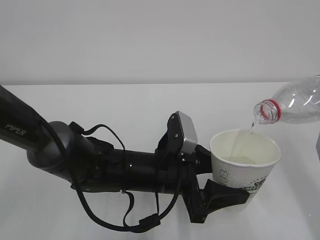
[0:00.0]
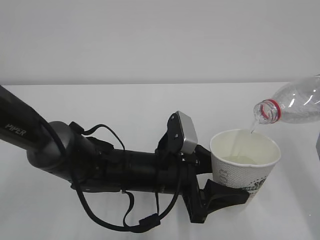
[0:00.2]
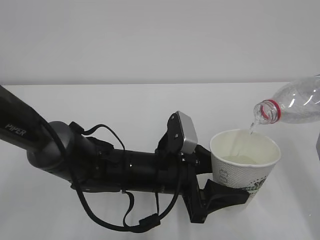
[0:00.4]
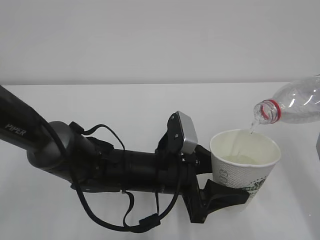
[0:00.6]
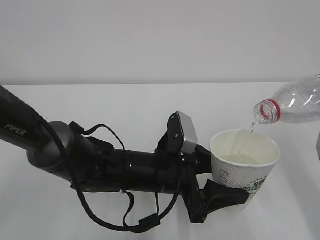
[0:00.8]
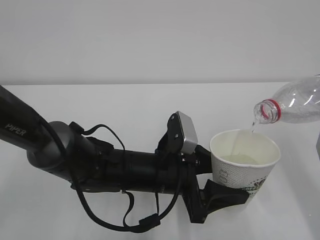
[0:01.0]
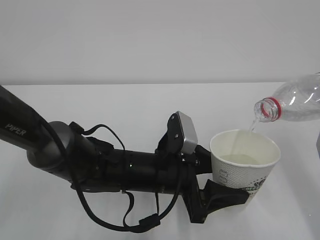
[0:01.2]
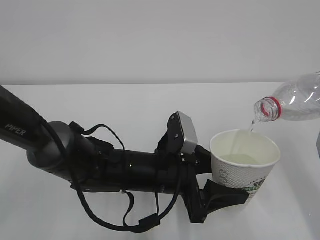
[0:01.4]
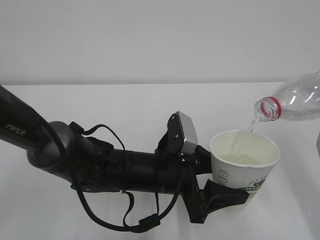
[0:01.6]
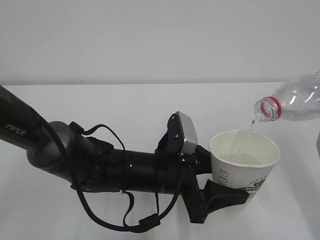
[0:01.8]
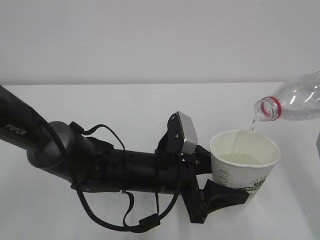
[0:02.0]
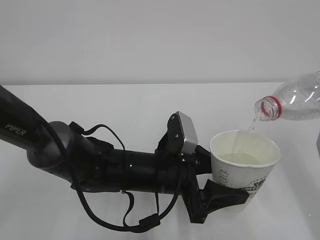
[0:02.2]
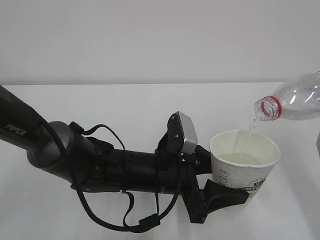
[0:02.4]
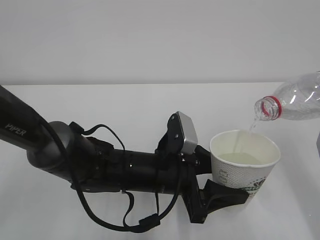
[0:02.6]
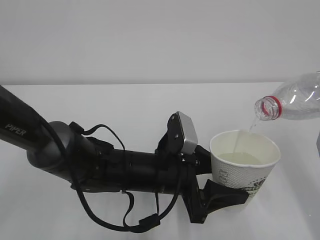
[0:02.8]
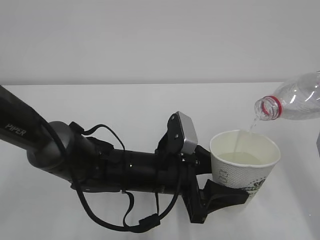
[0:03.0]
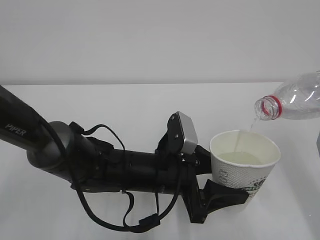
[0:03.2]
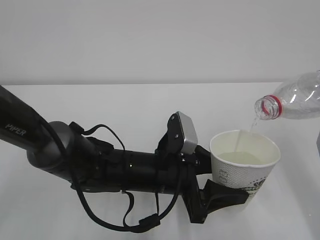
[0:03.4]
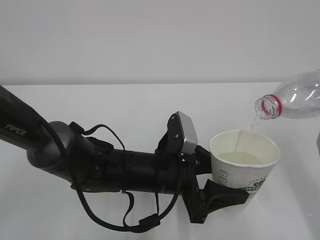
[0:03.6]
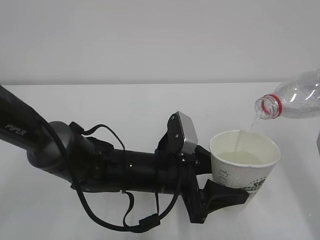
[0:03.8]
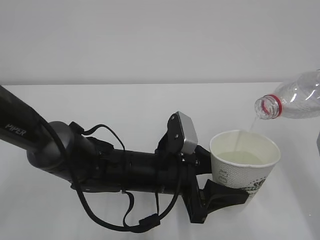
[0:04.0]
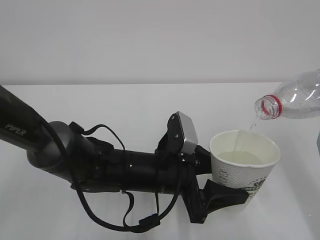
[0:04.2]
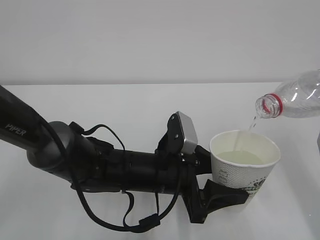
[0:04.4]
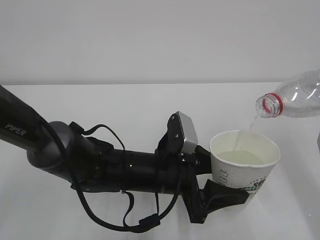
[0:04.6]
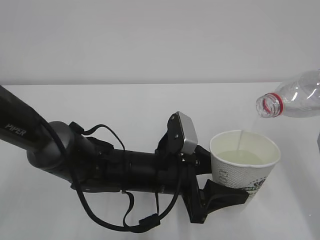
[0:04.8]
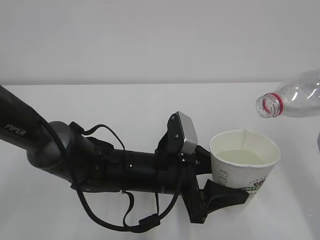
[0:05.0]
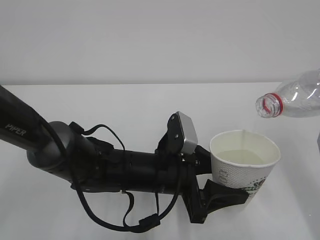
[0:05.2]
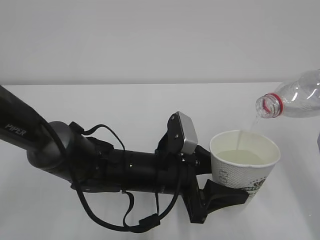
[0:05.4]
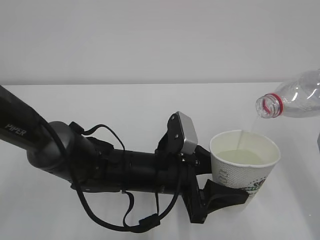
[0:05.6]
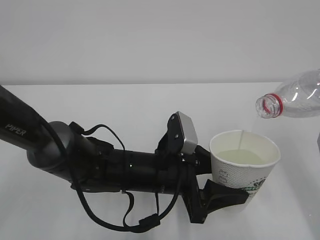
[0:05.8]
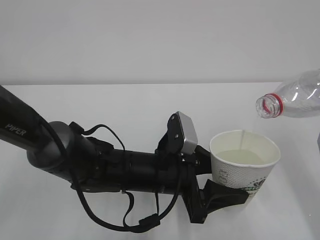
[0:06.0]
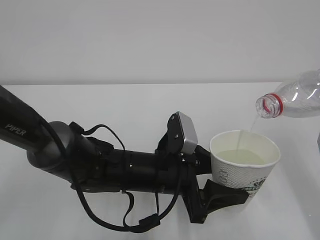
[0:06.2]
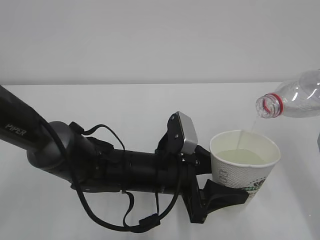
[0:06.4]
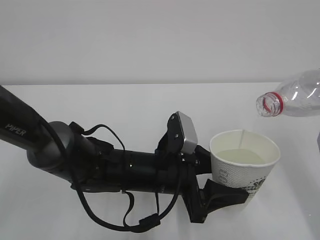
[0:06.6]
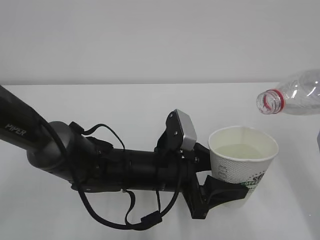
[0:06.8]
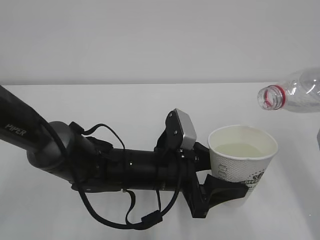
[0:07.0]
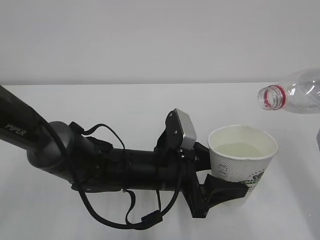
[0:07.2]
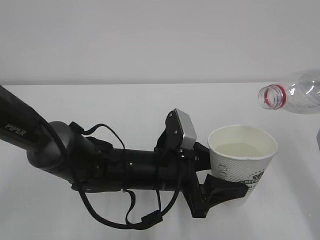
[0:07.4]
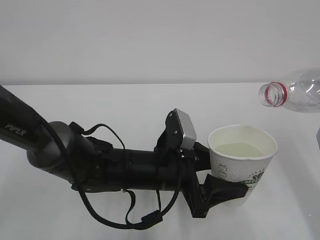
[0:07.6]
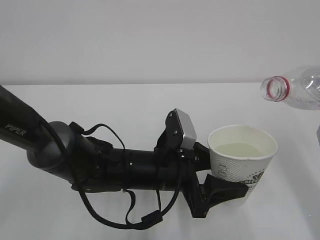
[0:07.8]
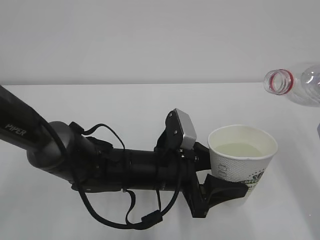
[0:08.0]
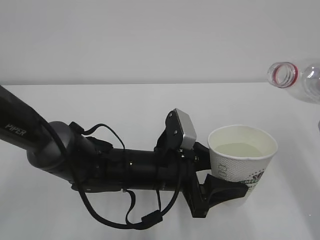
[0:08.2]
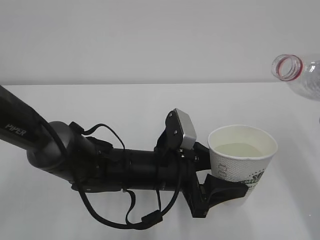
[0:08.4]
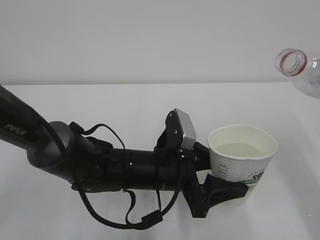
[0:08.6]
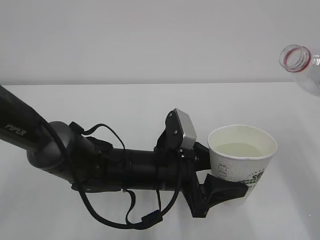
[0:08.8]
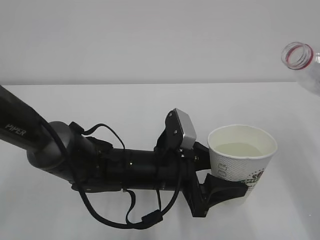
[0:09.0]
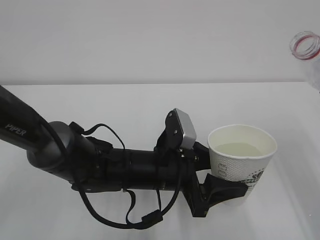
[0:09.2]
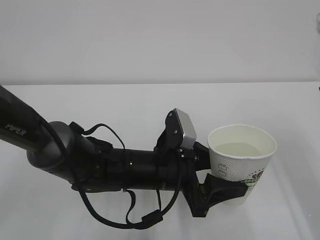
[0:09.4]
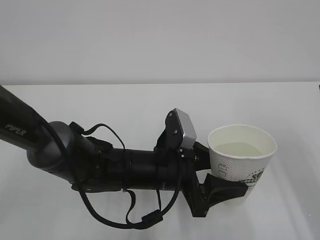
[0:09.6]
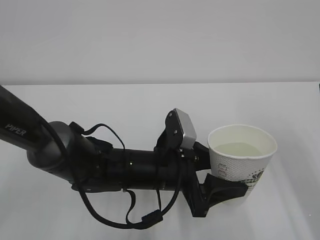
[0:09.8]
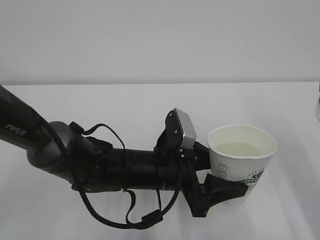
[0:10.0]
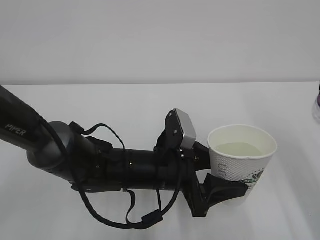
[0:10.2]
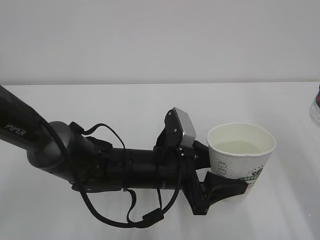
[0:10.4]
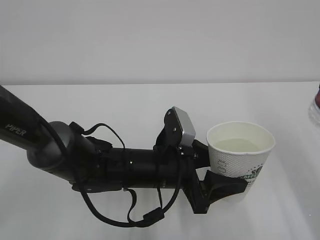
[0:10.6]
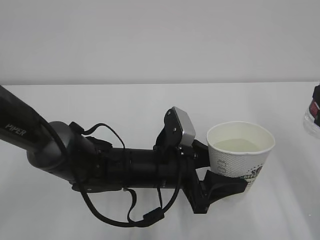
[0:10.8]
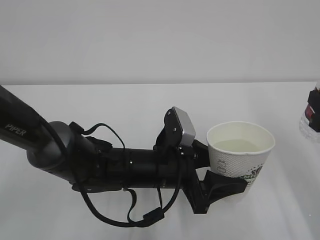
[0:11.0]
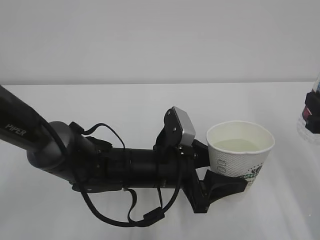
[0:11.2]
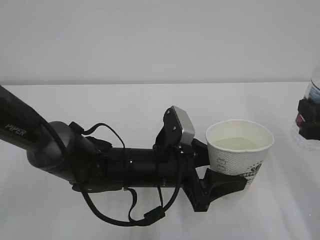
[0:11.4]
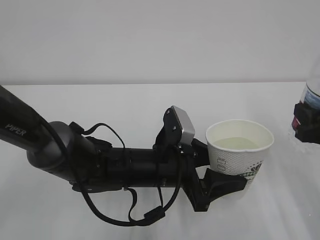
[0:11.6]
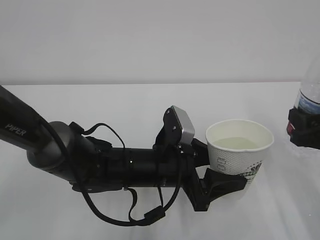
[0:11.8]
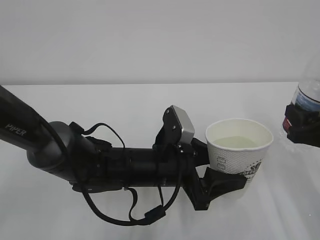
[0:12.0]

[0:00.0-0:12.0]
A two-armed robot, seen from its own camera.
0:00.0 to 0:06.0: The two grippers keep their place.
0:06.0 to 0:07.6: The grippers stay close to where they were, moving slightly.
0:10.4 to 0:12.0: The right gripper moves downward, about 5 cm.

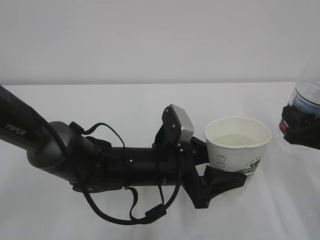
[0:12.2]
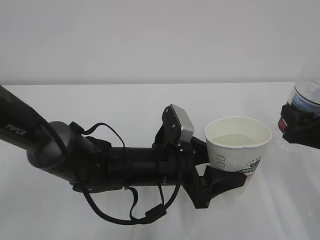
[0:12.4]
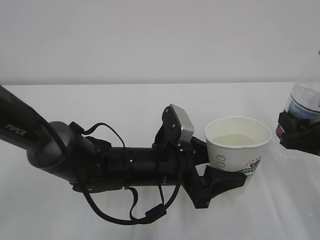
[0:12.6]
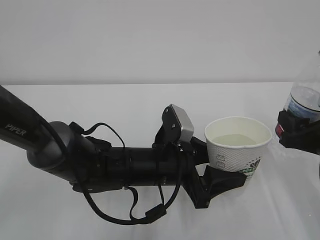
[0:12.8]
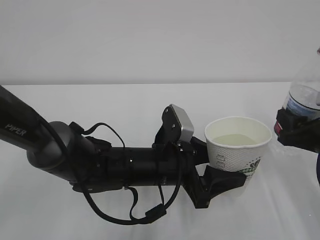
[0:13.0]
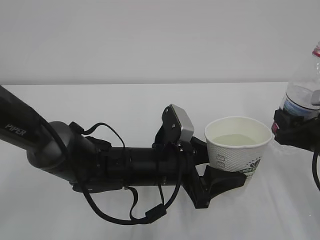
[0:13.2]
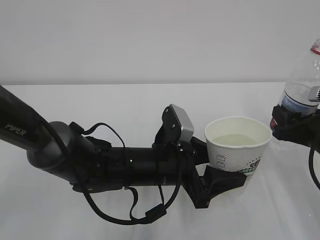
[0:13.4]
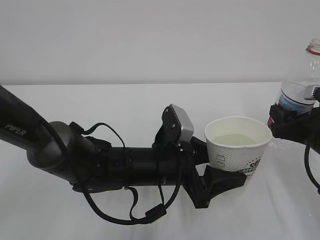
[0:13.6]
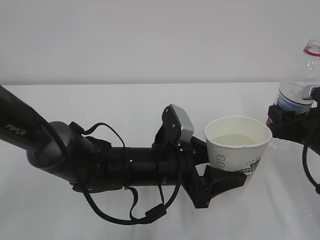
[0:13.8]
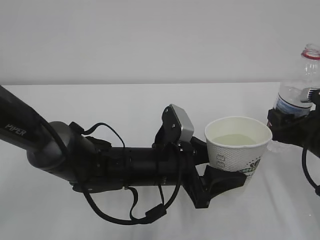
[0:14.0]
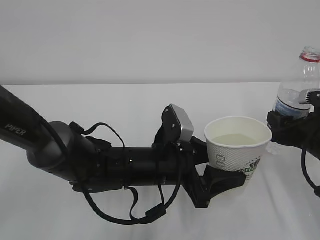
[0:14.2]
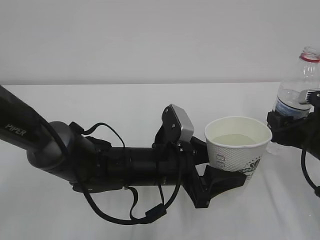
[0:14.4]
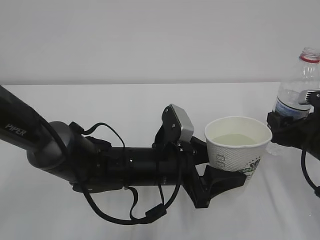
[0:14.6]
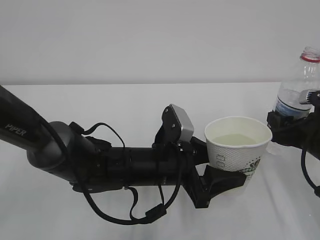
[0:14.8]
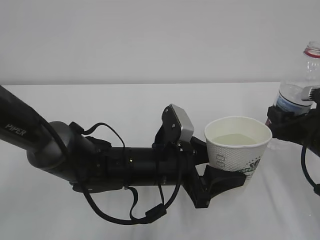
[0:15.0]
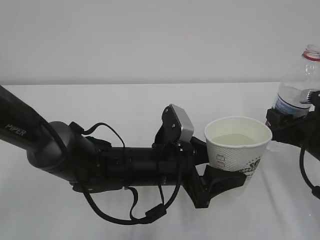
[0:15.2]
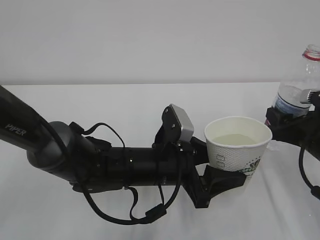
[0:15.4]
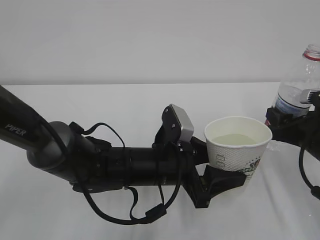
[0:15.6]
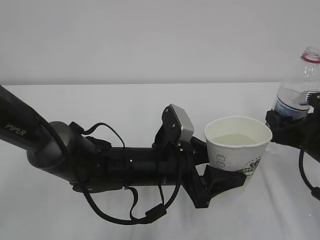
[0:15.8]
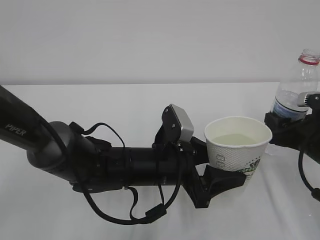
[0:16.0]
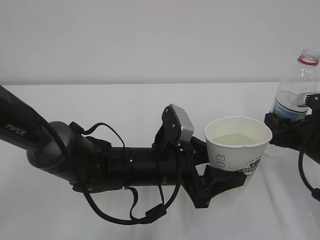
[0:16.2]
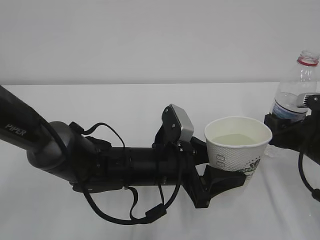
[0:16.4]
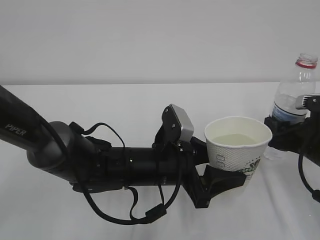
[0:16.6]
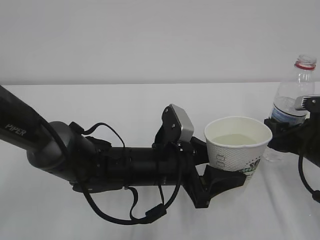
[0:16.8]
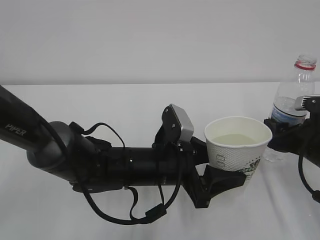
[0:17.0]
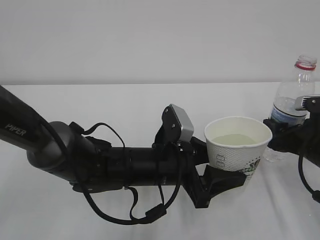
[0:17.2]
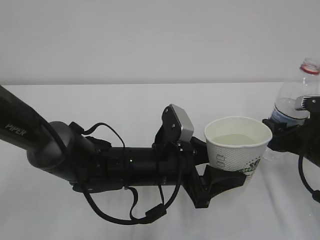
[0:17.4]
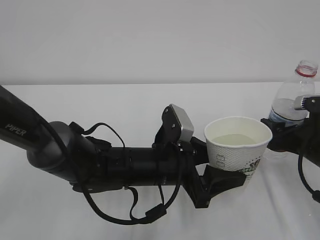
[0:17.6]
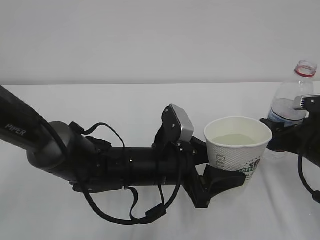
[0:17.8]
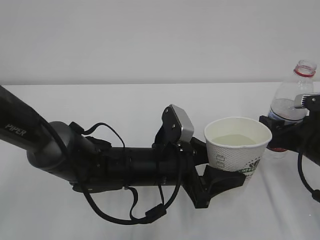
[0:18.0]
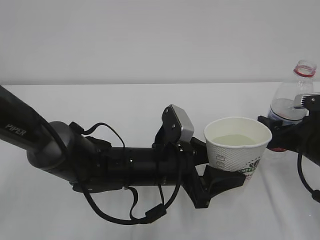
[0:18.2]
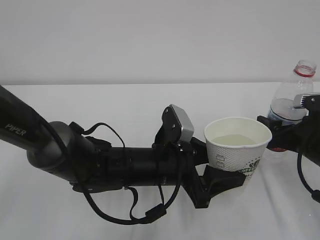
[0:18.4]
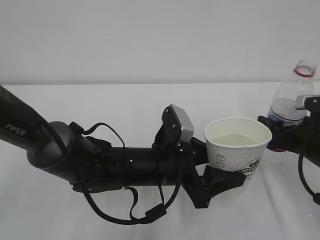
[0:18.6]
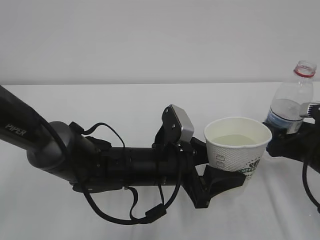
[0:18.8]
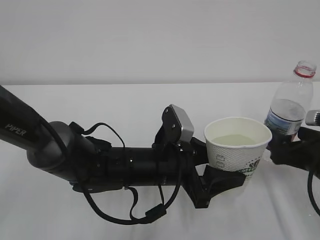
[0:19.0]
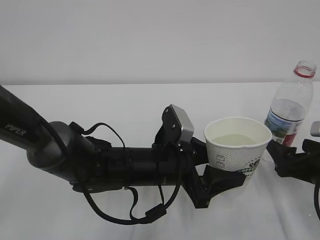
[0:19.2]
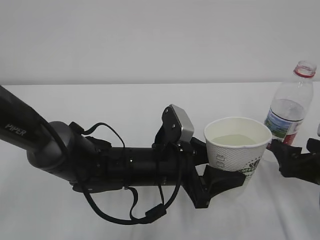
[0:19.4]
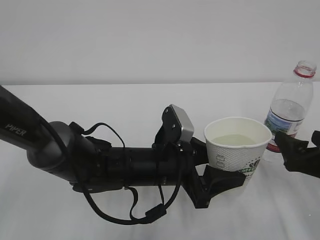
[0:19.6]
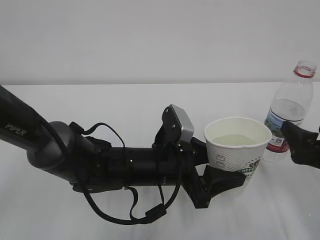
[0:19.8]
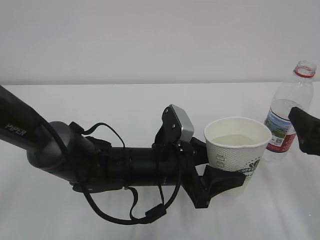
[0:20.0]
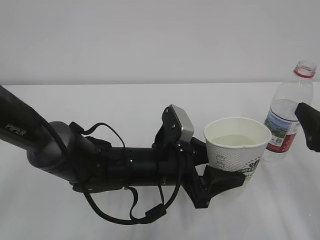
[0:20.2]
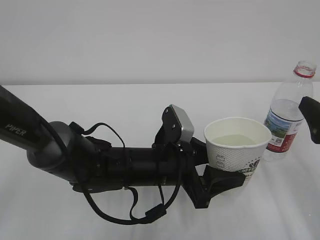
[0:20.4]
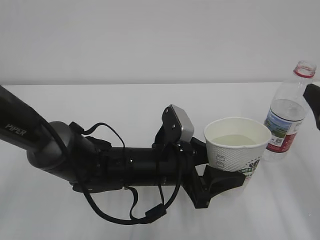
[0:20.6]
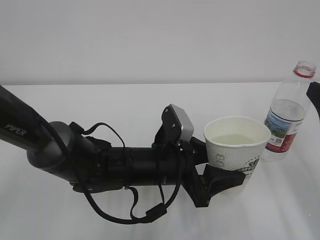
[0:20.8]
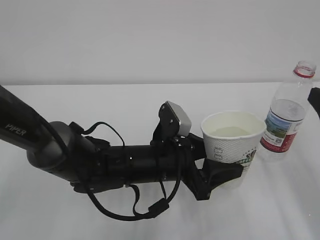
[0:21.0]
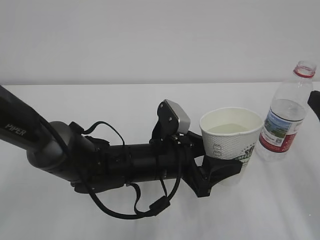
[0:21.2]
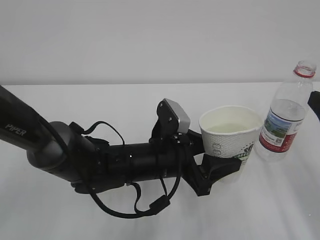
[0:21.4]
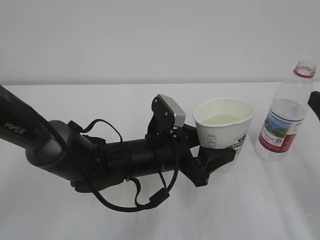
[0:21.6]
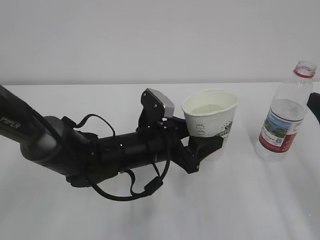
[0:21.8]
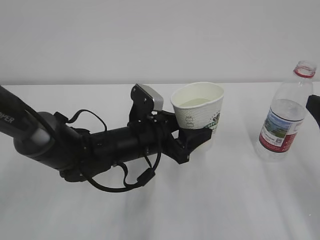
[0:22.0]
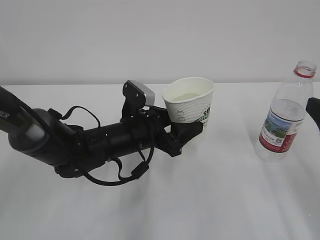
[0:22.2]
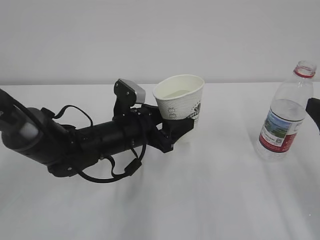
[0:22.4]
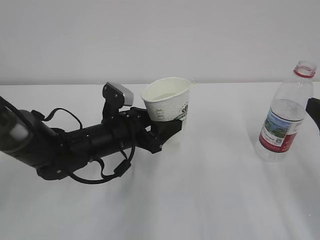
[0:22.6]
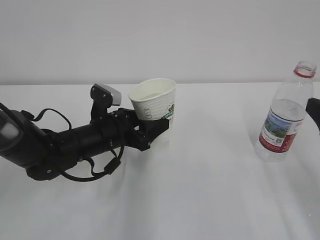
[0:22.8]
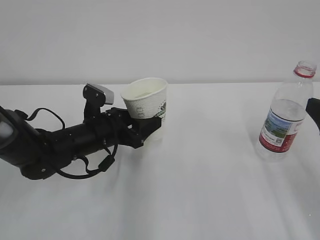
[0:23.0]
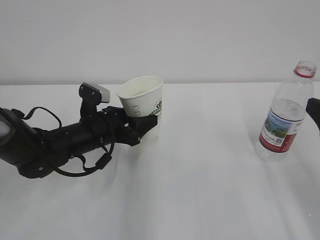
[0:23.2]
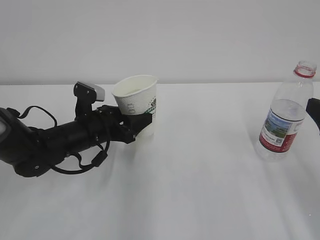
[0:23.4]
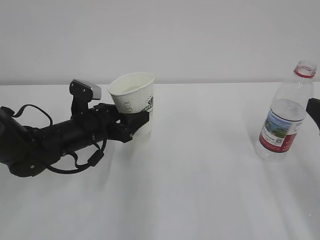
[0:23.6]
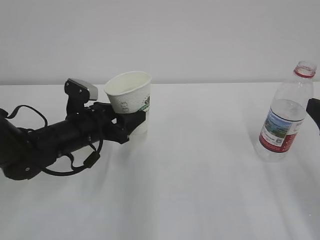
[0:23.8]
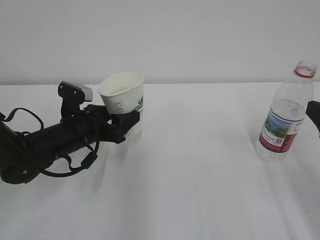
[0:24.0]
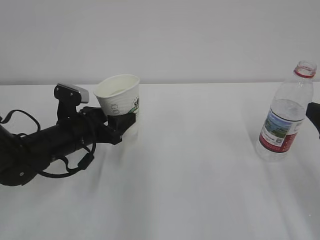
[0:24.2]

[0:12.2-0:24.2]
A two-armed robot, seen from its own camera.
0:12.2 to 0:13.8: The right gripper moves some 5 cm.
0:13.8 to 0:15.2: Both grippers stay about where they are.
0:15.2 to 0:16.6: The two grippers keep their place.
0:16.6 to 0:18.2: The right gripper opens up.
0:18.2 to 0:19.8: The right gripper heads backward, covering about 5 cm.
0:19.8 to 0:21.2: The right gripper shifts about 10 cm upward.
0:21.2 to 0:22.6: The left gripper is displaced to the left and forward by about 10 cm.
0:22.6 to 0:24.2: The left gripper moves to the left, approximately 10 cm.
